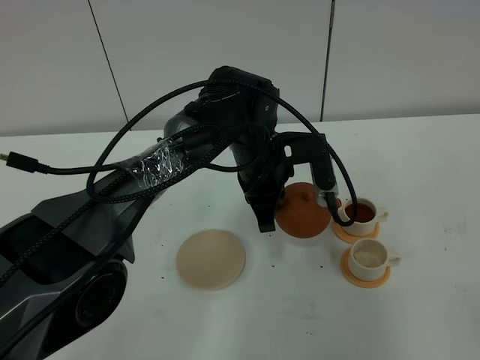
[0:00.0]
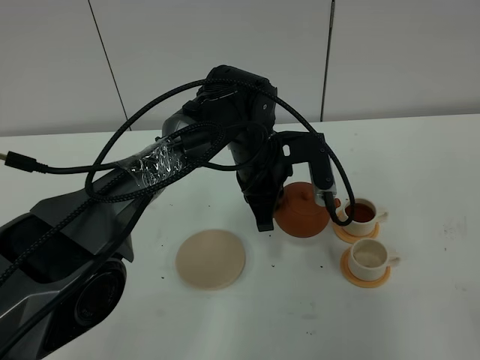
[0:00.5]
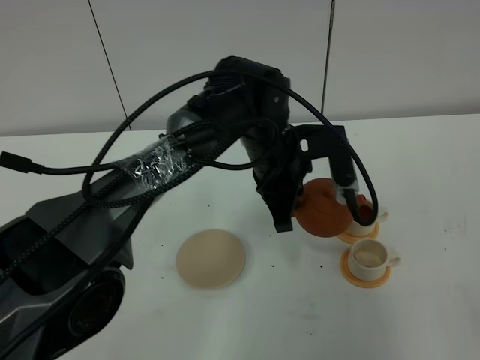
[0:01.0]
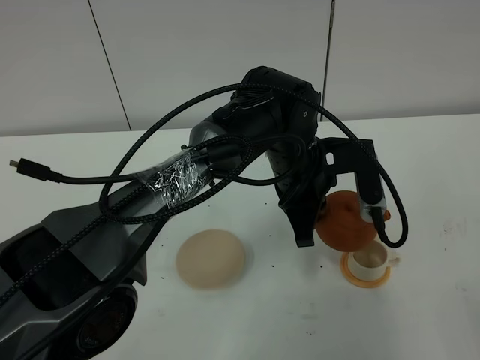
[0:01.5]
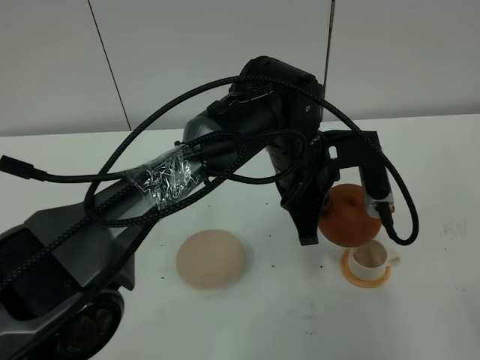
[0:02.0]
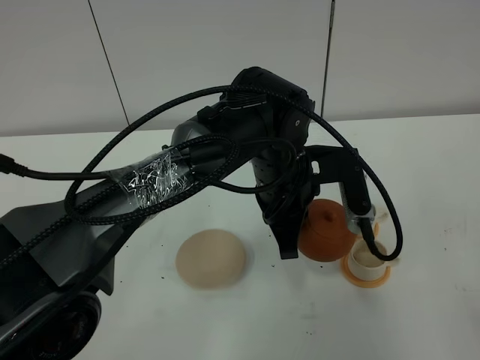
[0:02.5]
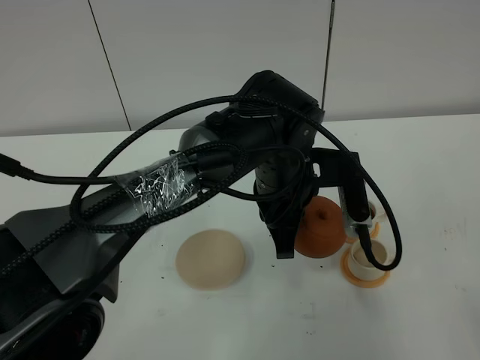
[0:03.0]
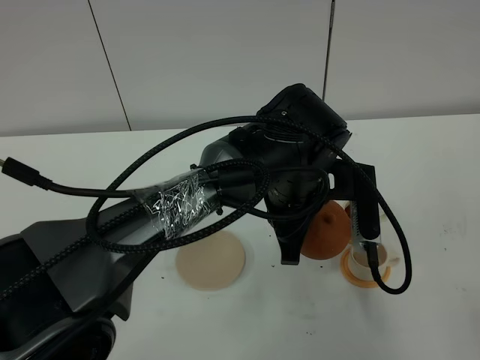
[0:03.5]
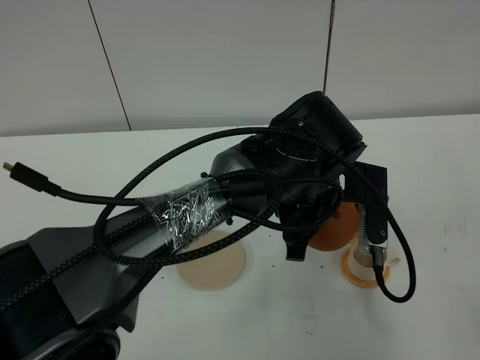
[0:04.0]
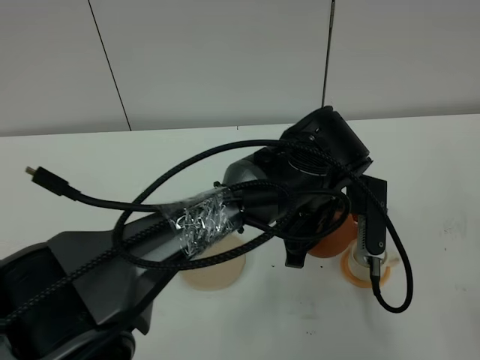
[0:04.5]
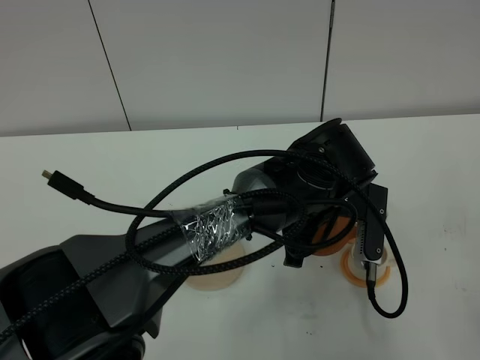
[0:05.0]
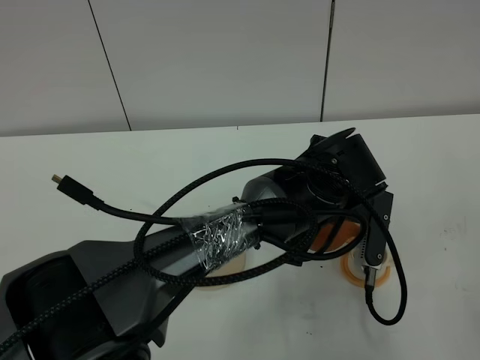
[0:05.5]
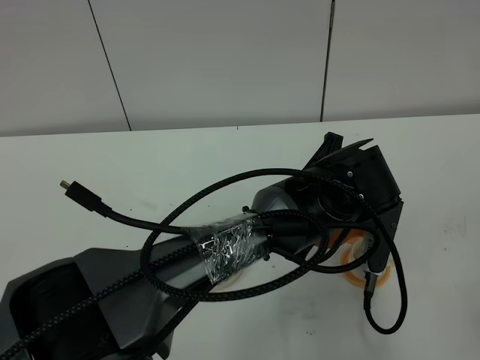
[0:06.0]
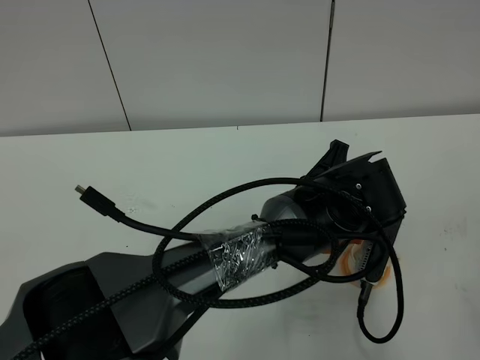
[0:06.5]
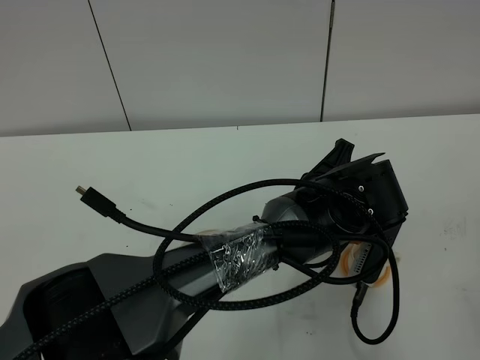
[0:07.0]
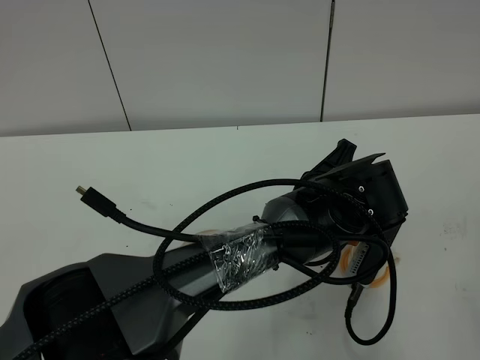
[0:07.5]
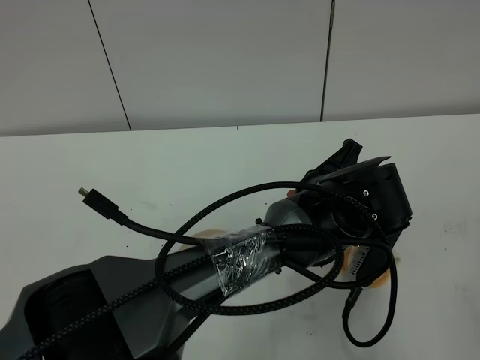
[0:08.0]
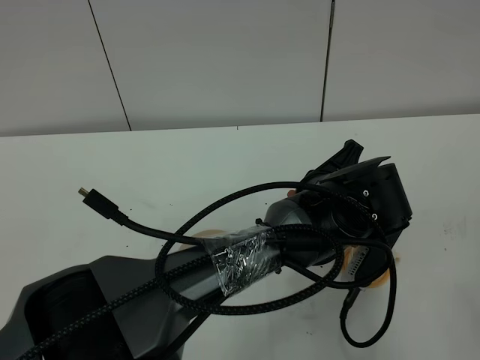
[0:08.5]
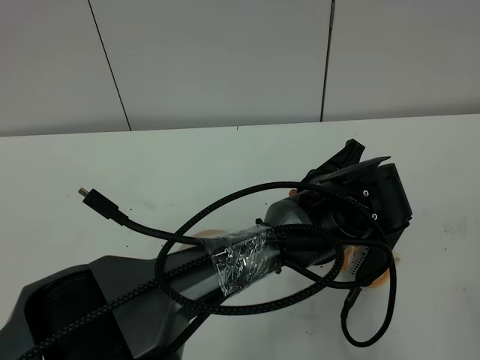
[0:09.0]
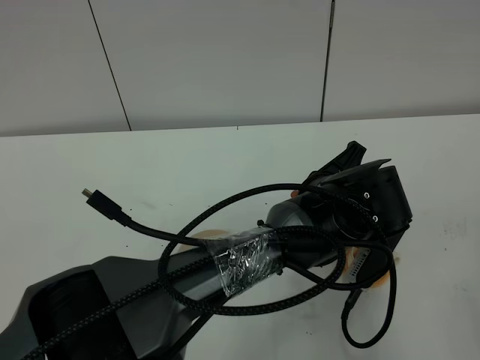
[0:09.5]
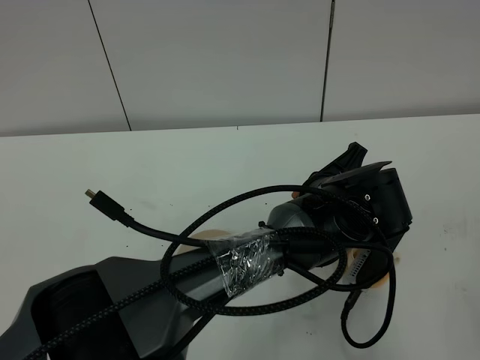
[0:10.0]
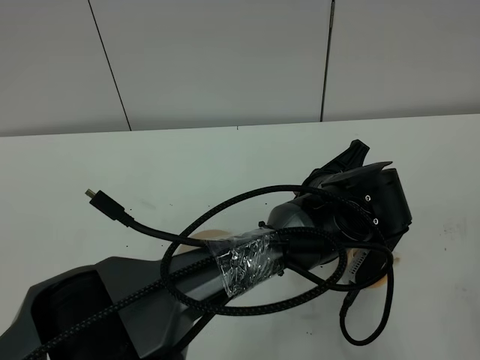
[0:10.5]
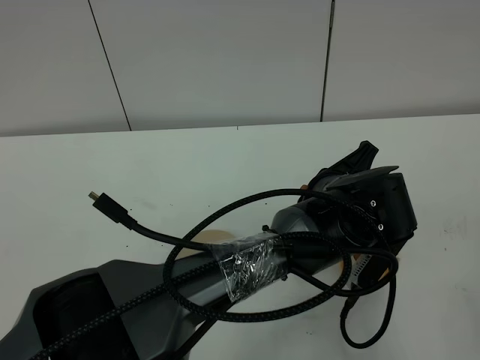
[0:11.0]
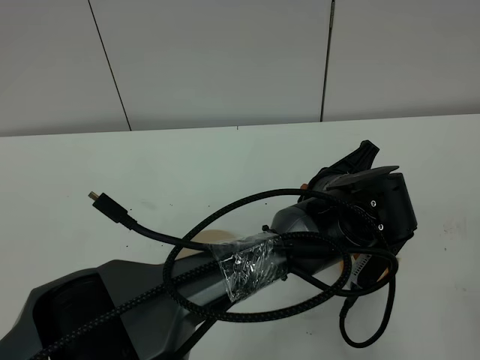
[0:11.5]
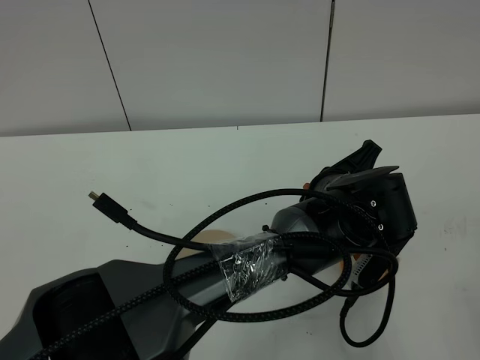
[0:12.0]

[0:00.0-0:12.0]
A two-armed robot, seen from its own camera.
Task of the whole recording: grasp the brown teapot and pour the tea into the two white teacups one by one, put the brown teapot back in its original place.
0:00.0 to 0:02.0: The left gripper moves backward, about 5 cm.
0:06.0 to 0:08.0: The grippers stay close to where they were, moving slightly.
0:08.0 to 0:10.0: Both grippers stay put.
0:10.0 to 0:12.0: The grippers stay close to where they were, moving slightly.

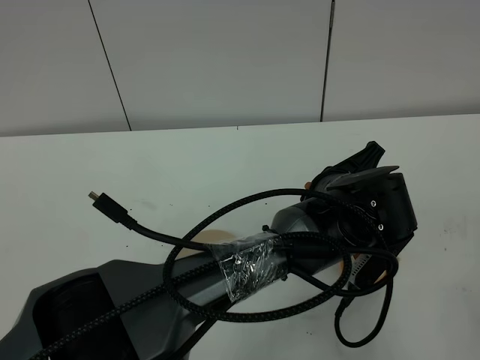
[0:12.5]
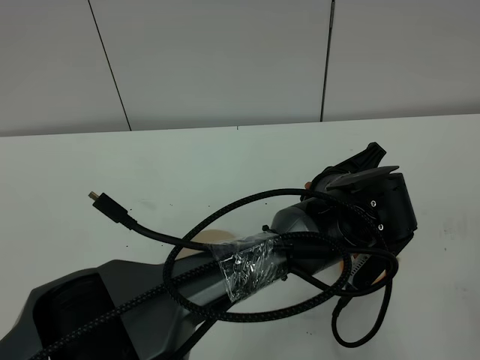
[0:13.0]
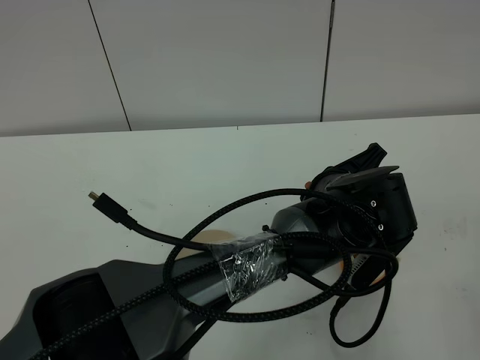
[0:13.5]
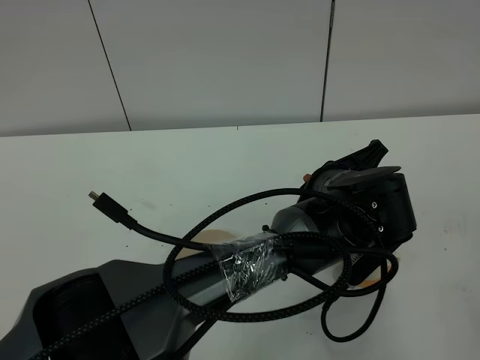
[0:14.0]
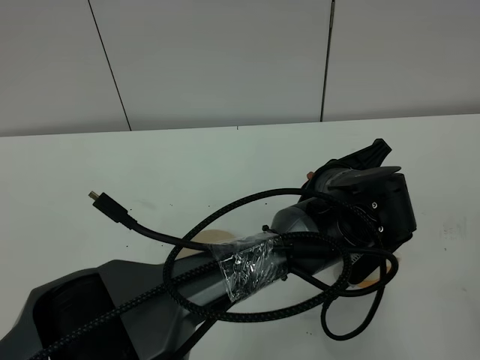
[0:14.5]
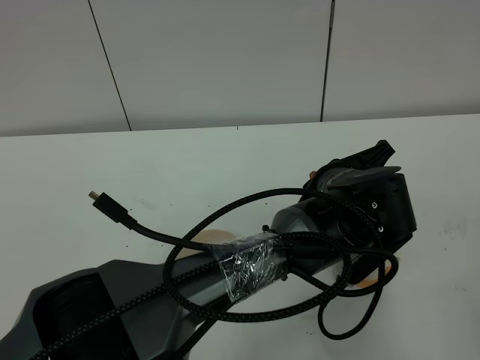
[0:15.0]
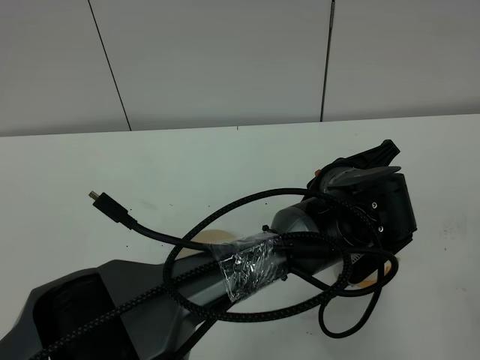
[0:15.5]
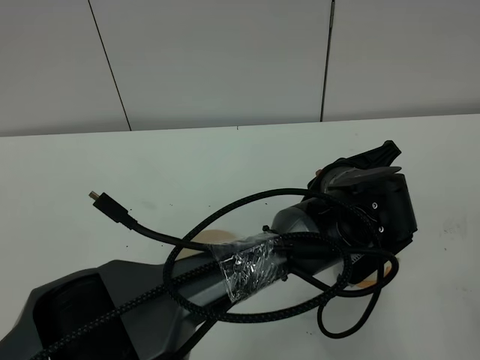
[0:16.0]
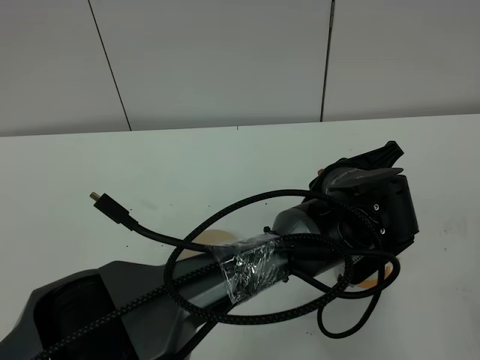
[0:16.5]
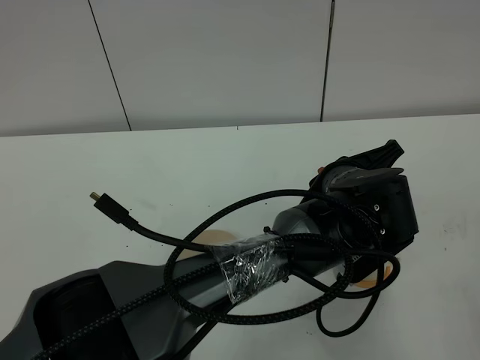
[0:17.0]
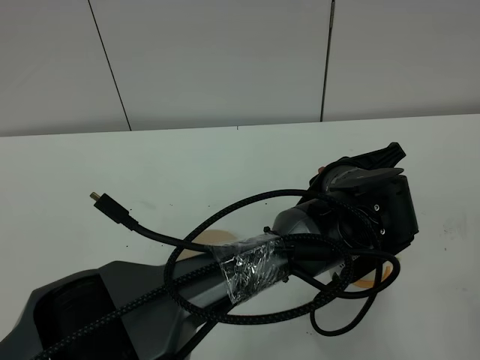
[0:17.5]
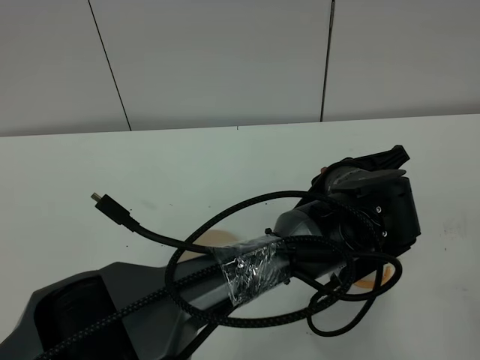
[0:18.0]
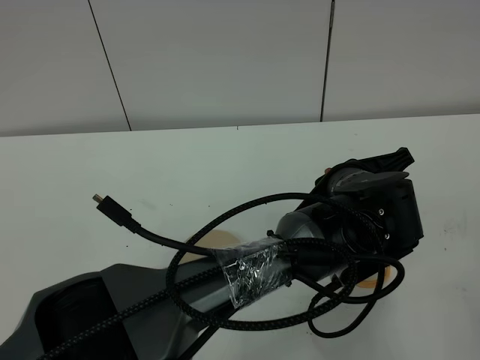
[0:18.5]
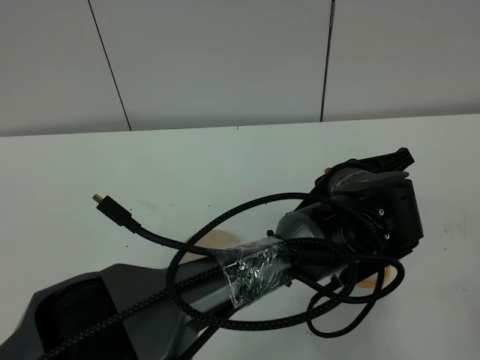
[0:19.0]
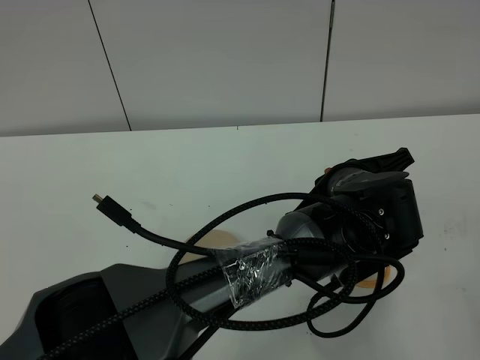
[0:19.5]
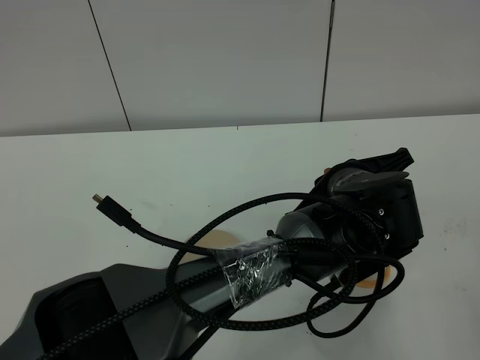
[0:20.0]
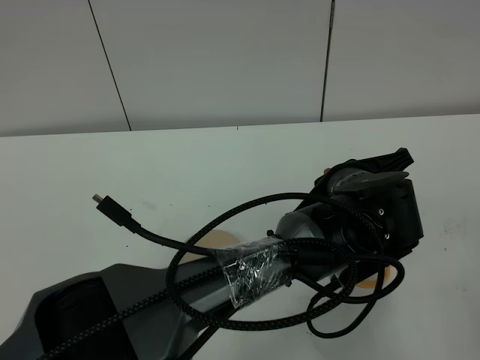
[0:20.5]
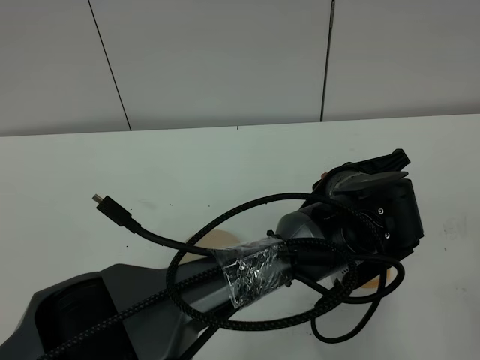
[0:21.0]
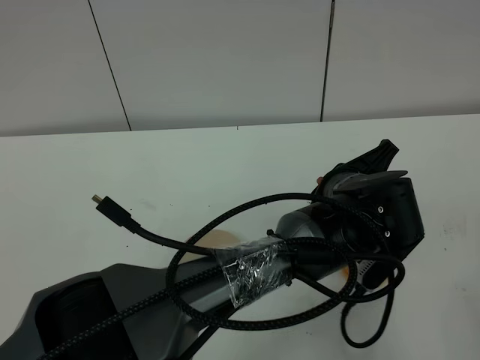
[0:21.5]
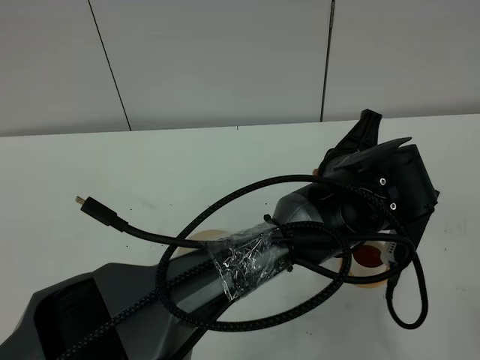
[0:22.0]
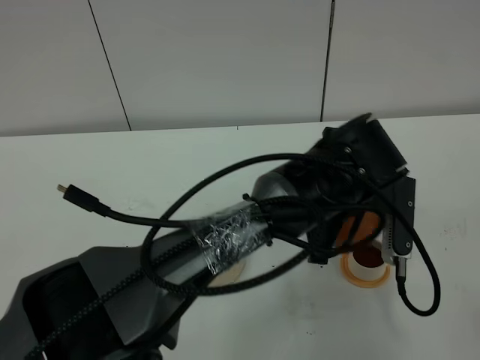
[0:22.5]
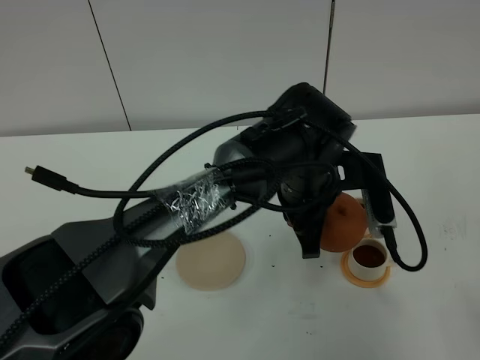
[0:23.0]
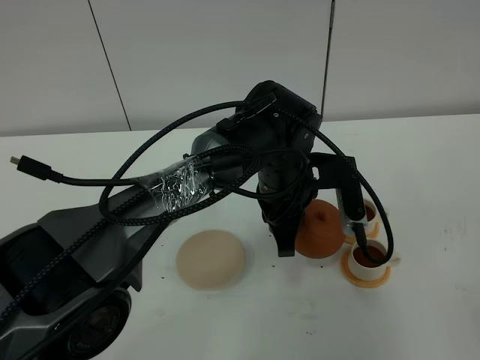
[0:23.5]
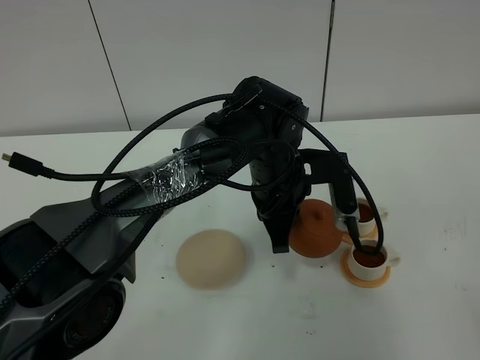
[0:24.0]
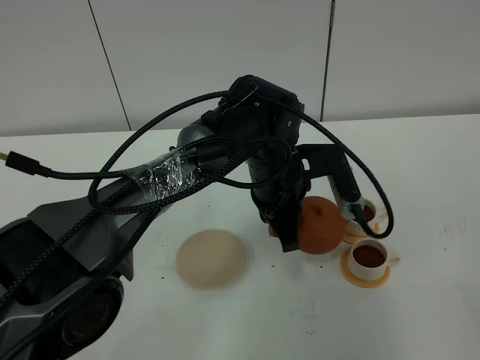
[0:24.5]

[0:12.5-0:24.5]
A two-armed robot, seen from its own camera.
Task of the whole recording: grasp the brown teapot and pour the tea into the two white teacups one by one, put the brown teapot back in its original place.
Step, 0:12.5 to 0:23.0: Pour tea into the teacup with the left gripper.
0:12.5 to 0:18.5: There are only small adjustments of the grippers.
0:18.5 to 0:20.5: The two grippers keep their place.
0:22.5 to 0:24.5: The left gripper heads to the left and forward, covering about 10 cm.

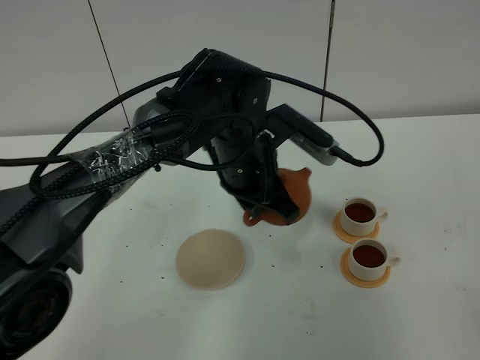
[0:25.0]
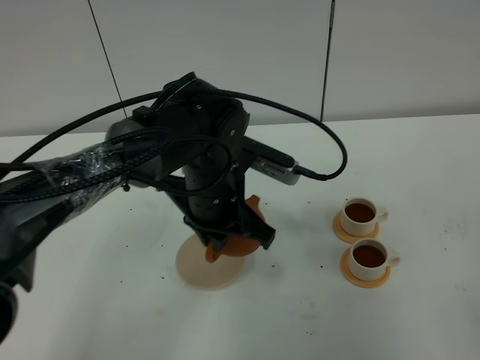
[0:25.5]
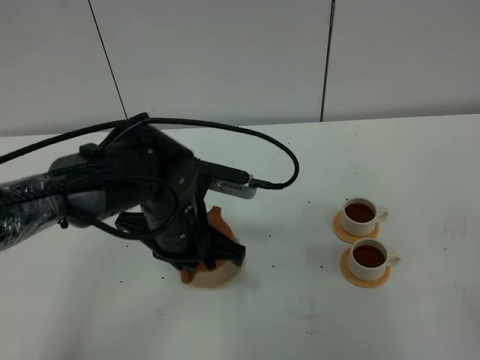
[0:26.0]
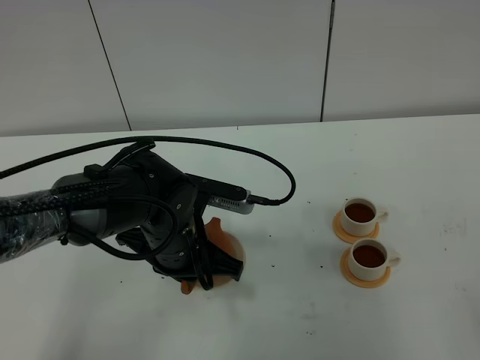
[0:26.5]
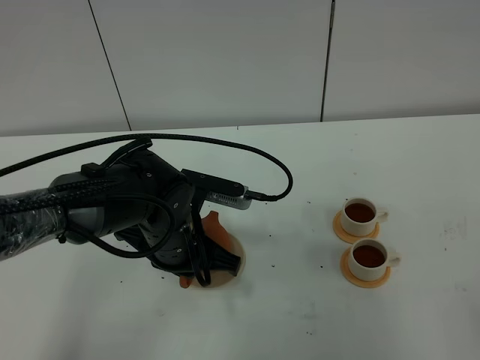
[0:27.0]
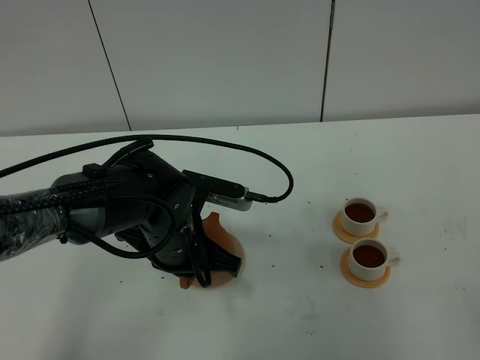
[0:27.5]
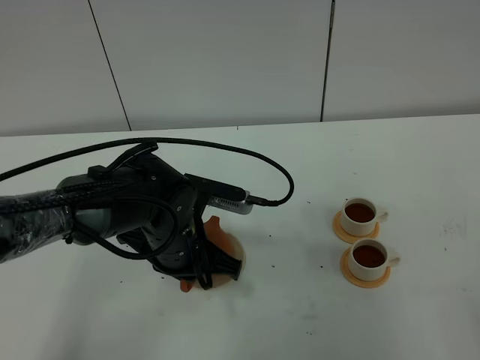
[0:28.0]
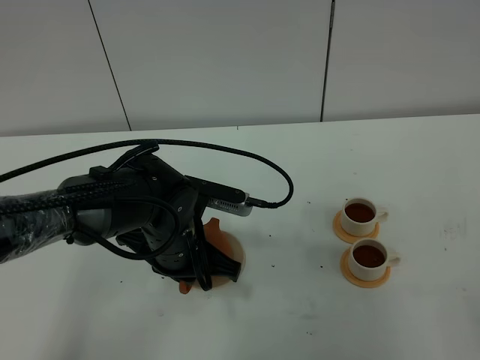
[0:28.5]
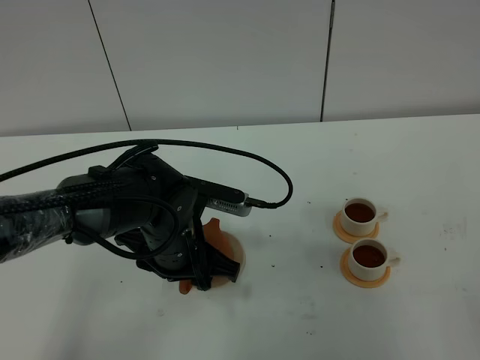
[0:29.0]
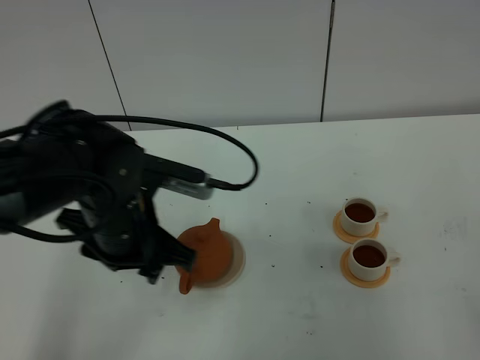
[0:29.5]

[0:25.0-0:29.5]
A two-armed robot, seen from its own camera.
Task of the whole recording: grasp the brown teapot and pour the tea into the two white teacups one by one, put the brown teapot back in its original place.
0:25.0 to 0:27.0: The left gripper shifts some 10 cm to the left, backward and downward.
0:27.0 to 0:29.5: The left gripper shifts some 5 cm upward, and opens up.
